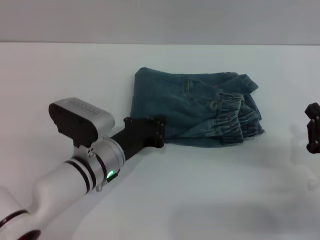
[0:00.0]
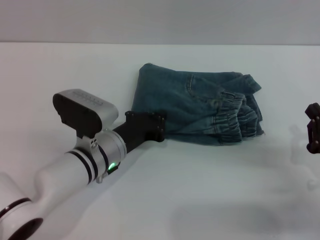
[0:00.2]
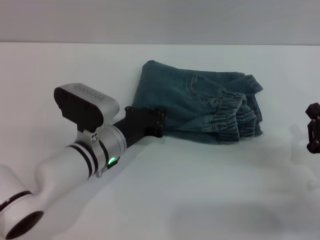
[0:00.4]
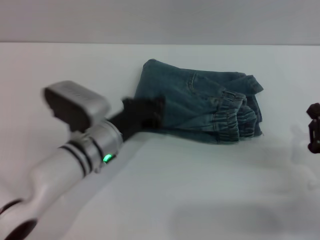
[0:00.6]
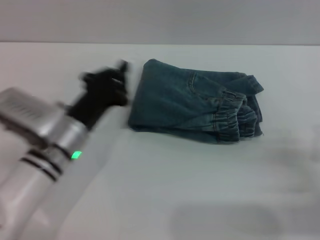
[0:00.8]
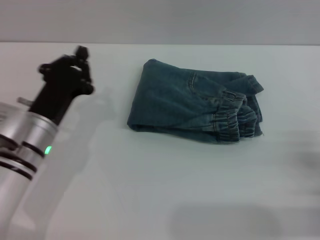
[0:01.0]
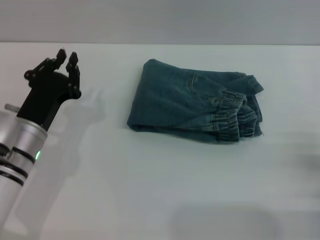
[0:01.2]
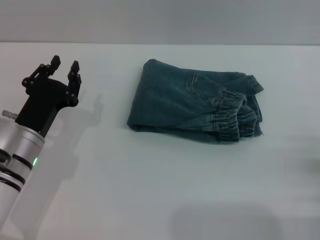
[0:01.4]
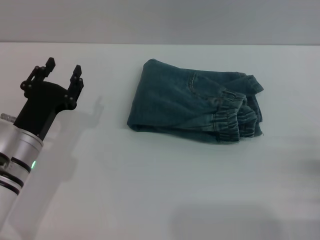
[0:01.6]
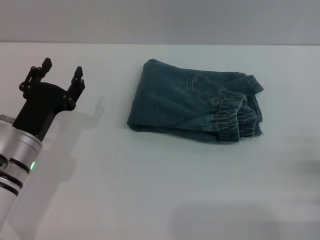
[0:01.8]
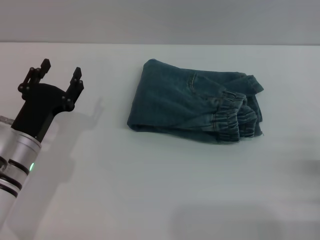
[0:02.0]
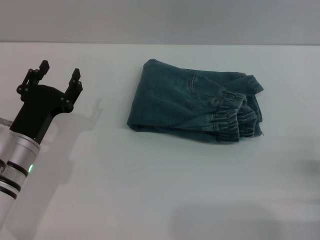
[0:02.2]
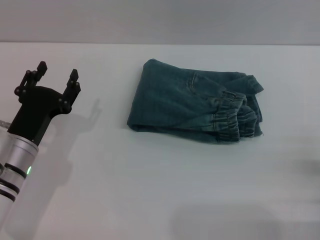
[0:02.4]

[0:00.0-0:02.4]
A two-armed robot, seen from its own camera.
0:00.0 to 0:01.2: The left gripper moves to the left, roughly 10 cm.
0:01.2 to 0:02.4: The left gripper opens up.

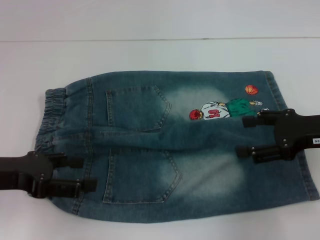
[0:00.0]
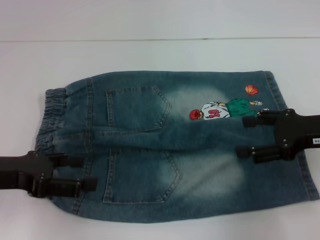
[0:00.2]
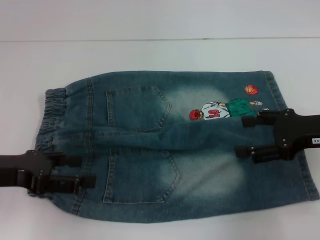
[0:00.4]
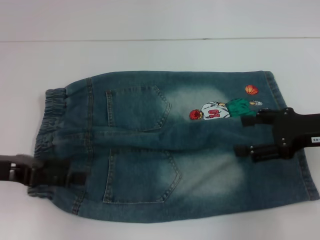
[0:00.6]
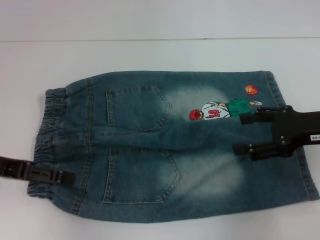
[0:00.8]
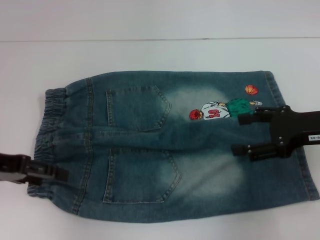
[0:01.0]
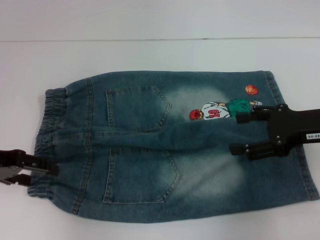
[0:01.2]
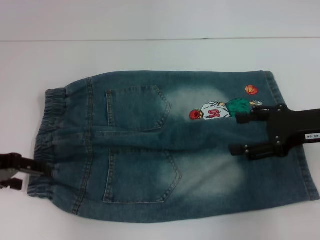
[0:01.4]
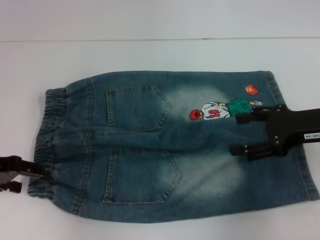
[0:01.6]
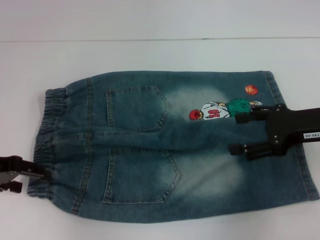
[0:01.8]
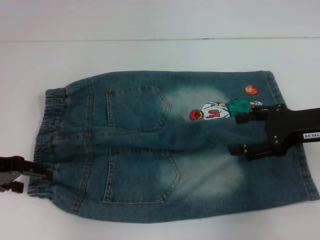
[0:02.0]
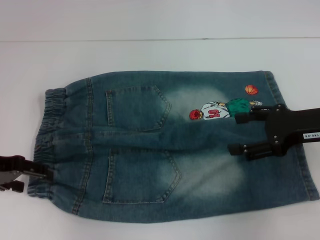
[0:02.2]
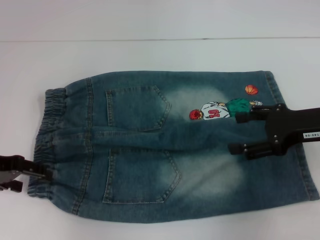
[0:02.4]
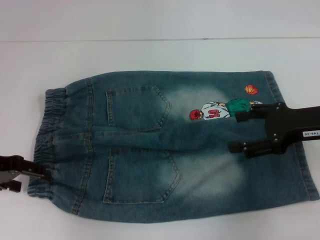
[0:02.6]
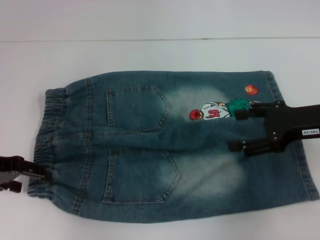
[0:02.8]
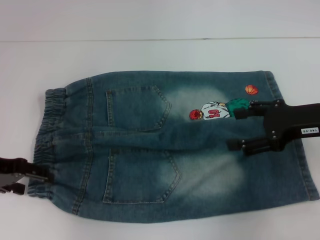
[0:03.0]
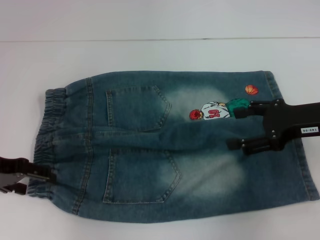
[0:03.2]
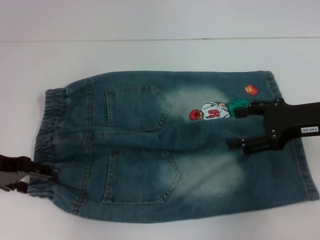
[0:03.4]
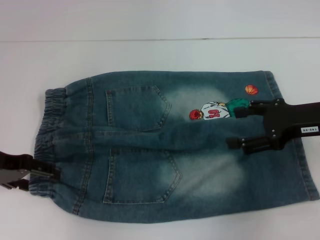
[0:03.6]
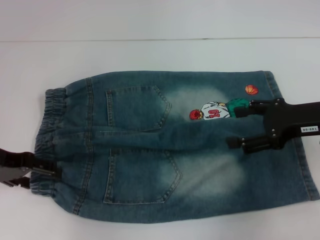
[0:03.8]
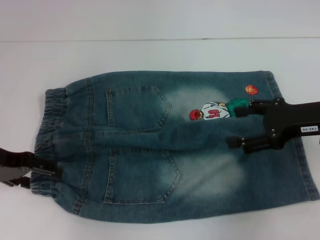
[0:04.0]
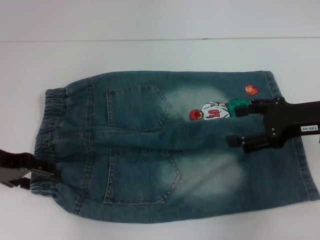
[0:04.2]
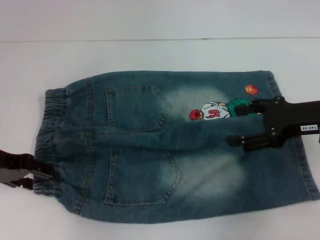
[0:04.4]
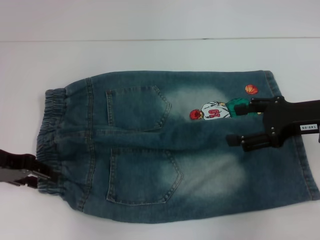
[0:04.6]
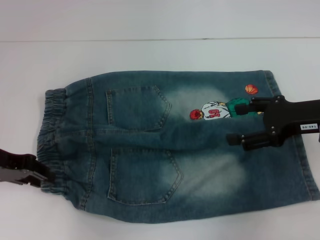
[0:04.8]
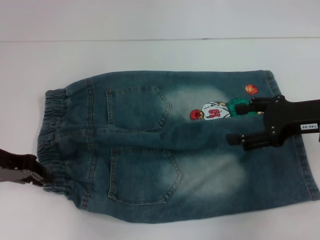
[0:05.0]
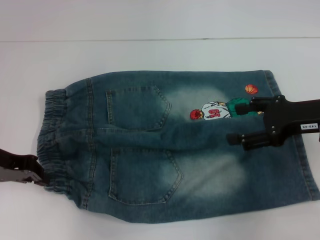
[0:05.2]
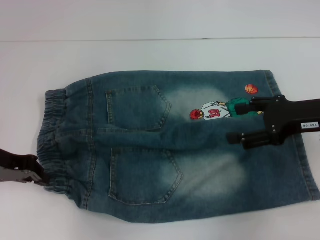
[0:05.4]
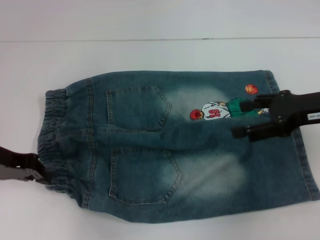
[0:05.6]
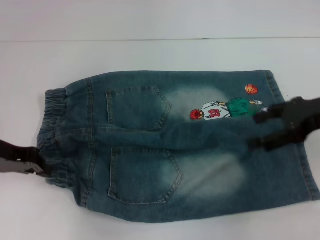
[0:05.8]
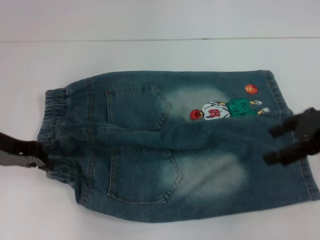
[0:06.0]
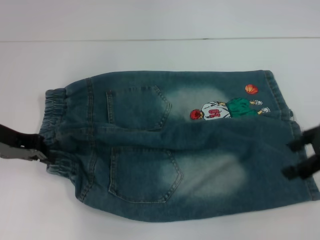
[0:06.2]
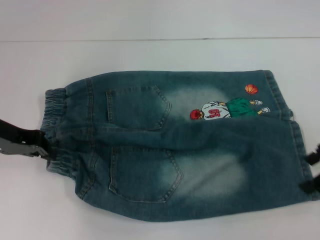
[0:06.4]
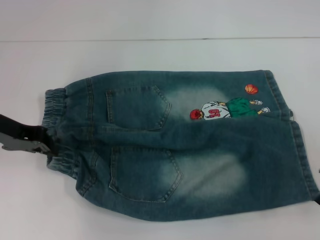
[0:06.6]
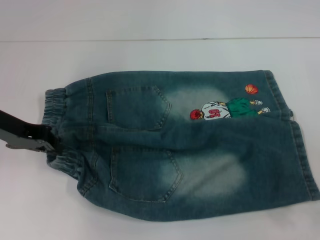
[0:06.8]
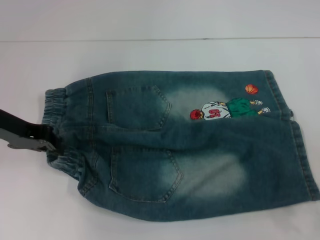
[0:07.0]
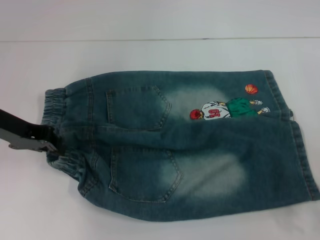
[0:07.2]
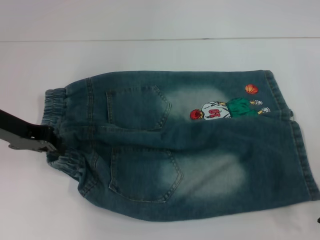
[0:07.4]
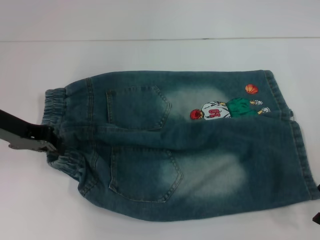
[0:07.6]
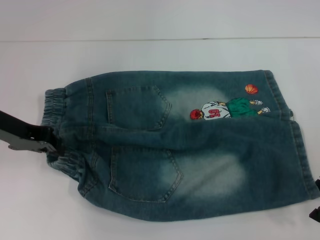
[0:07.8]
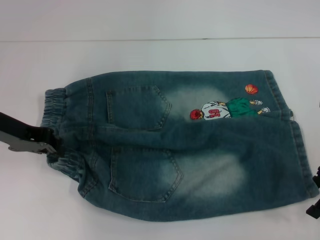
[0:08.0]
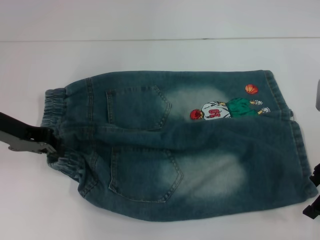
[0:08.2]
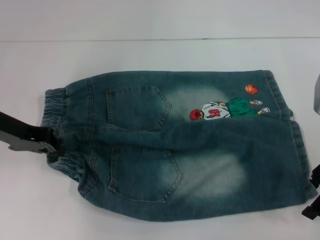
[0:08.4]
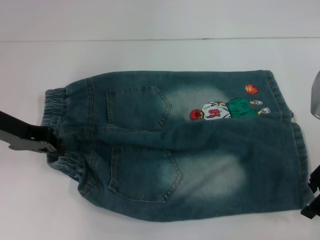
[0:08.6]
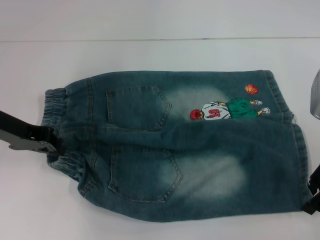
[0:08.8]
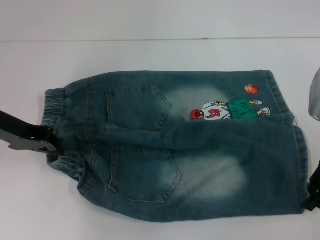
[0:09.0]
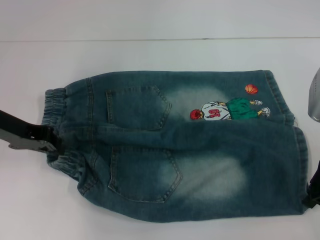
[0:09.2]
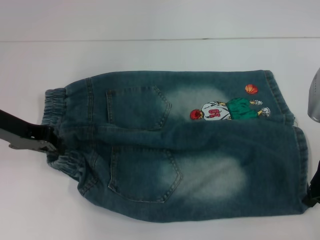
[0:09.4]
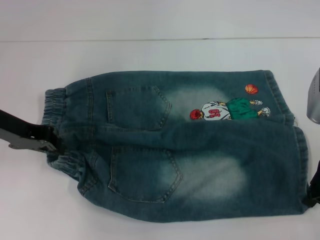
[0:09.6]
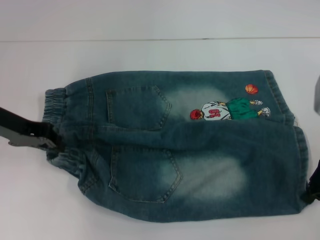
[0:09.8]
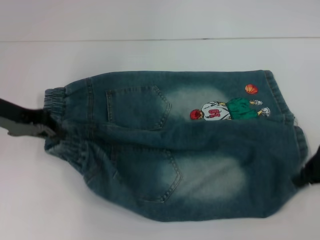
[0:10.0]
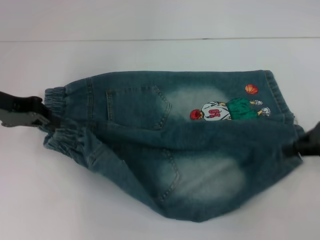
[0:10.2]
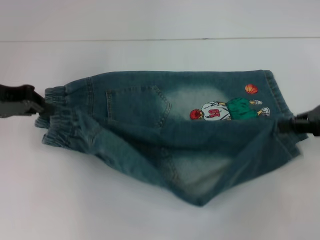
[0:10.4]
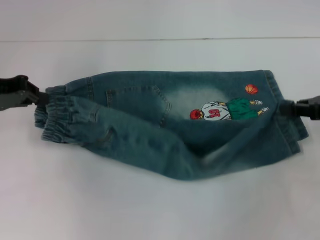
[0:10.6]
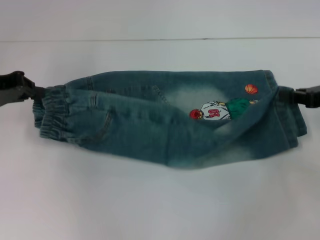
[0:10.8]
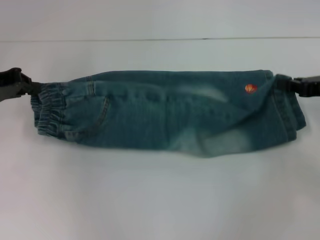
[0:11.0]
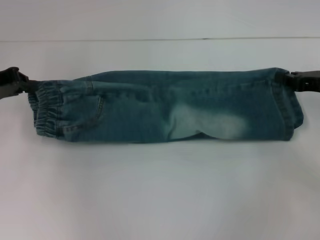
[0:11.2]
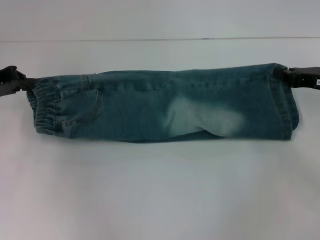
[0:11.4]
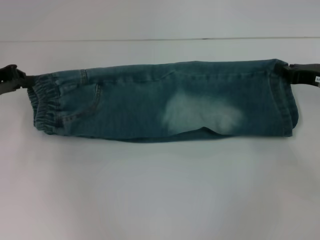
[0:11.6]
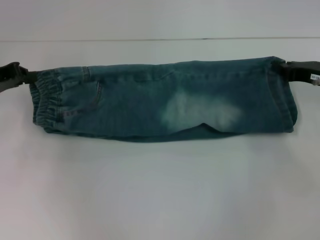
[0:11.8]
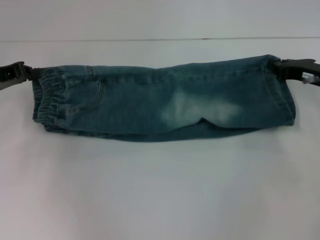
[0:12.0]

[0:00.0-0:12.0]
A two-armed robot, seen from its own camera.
Step, 0:00.0 to 0:05.2: Hold the lower left waistband with your left hand.
Step, 0:05.6 to 0:09.4: Grab the lower right pant leg with your right hand.
0:00.0 to 0:01.6: The left gripper heads forward, covering some 5 cm.
0:01.6 to 0:03.0: Neither gripper changes place.
0:03.0 to 0:04.4: The two grippers keep their place.
0:04.4 to 0:06.0: The left gripper closes its fingers.
0:07.6 to 0:09.0: The right gripper closes its fingers.
0:09.0 to 0:10.4: The right gripper moves to the right, some 5 cm, and closes.
0:10.4 to 0:12.0: The left gripper moves roughly 5 cm. The right gripper moves forward and downward, approximately 10 cm.

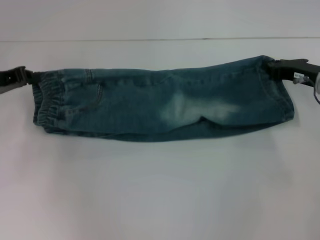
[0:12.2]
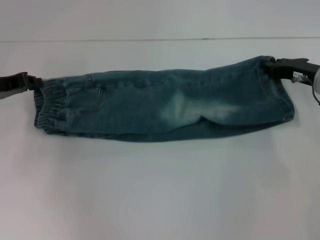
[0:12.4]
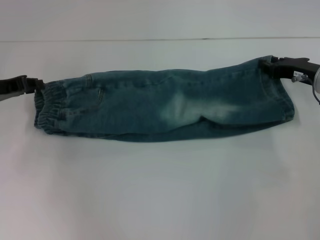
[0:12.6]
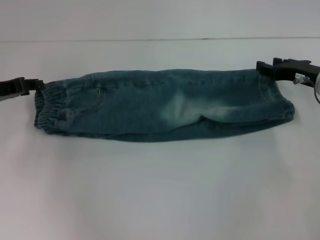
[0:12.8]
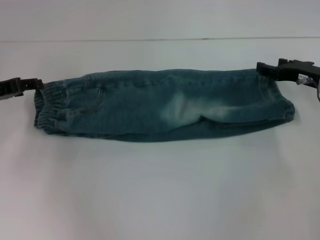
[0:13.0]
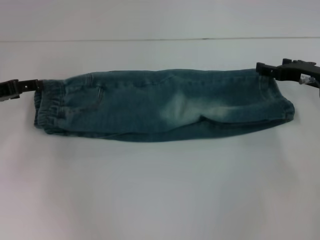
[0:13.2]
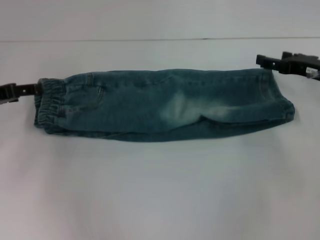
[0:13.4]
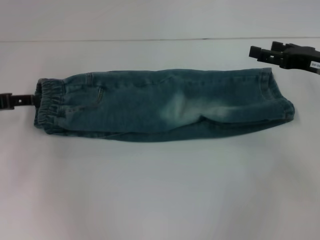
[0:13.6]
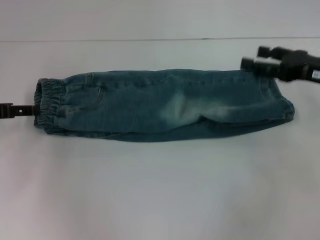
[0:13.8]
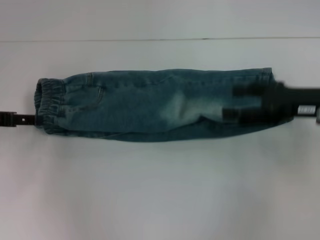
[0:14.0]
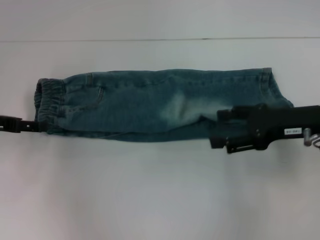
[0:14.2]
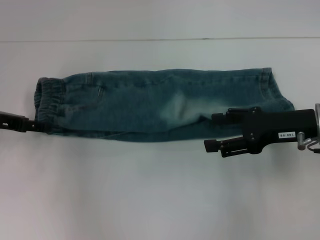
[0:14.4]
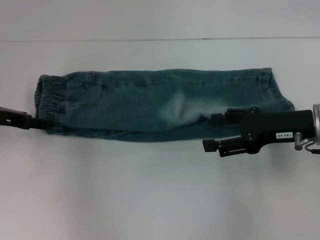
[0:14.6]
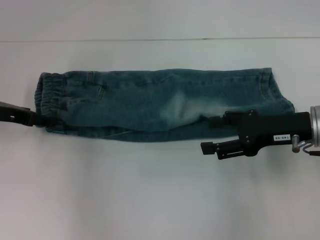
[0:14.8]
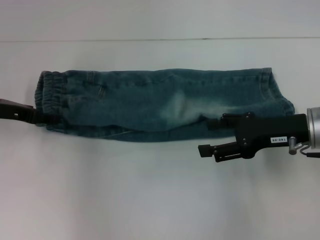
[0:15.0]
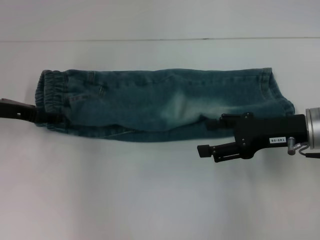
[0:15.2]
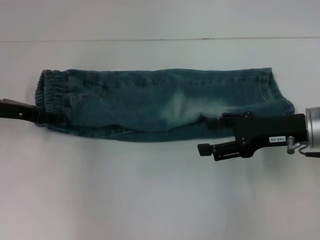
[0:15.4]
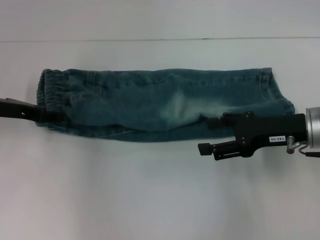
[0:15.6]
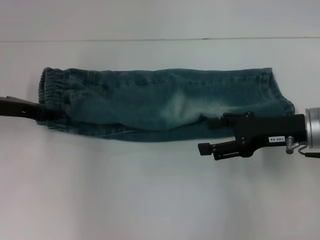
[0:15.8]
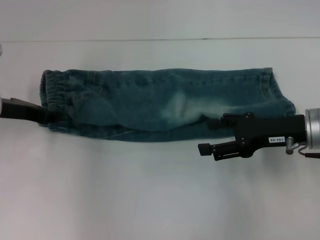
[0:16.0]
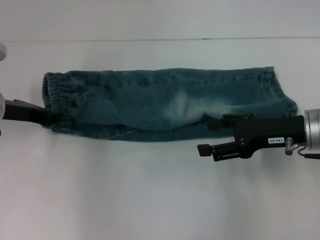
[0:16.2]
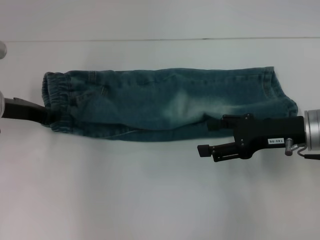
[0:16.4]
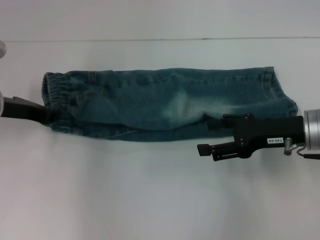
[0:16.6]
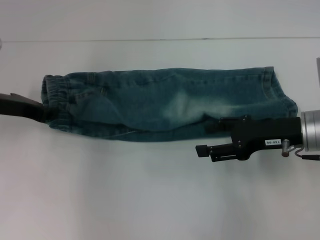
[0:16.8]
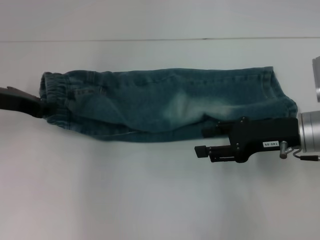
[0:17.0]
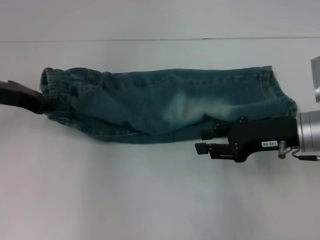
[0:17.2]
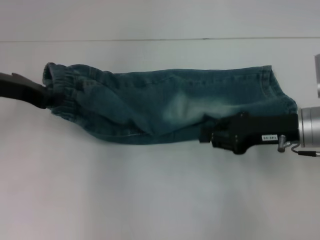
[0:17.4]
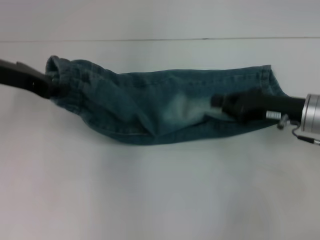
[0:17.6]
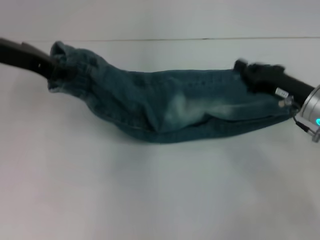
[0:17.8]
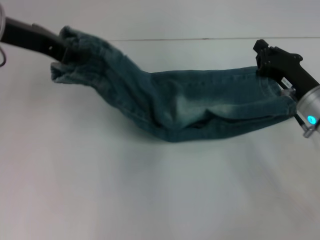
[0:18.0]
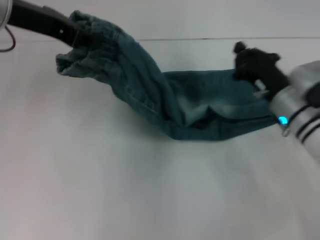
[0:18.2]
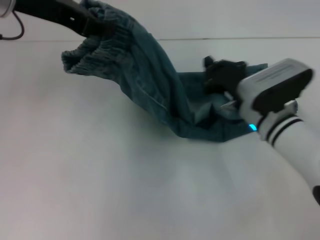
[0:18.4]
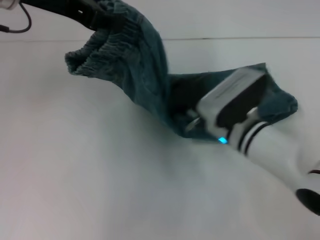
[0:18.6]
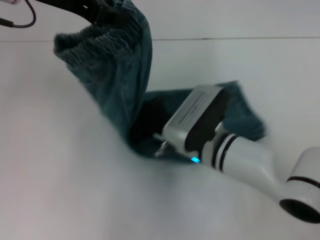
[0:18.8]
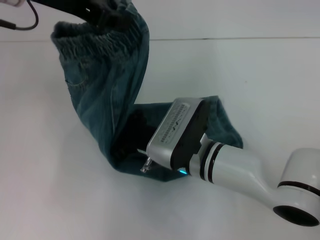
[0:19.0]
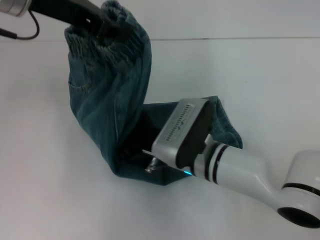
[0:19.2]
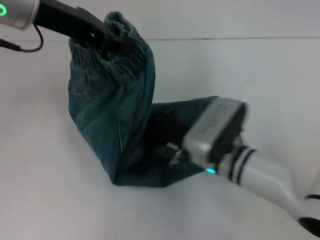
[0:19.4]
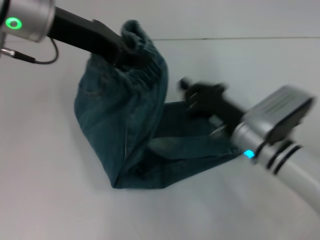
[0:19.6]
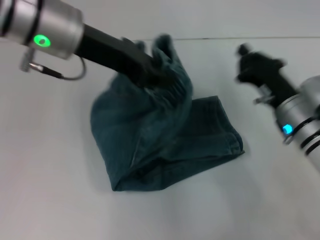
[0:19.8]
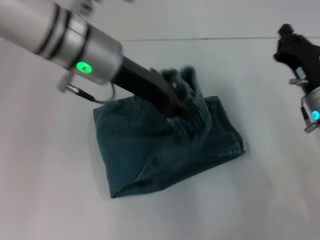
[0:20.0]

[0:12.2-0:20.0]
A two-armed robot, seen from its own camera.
Step, 0:13.2 to 0:16.4: Hold the waistband with your left hand.
Step, 0:16.8 to 0:19.4: Press the middle of the pants with your right hand.
0:12.2 to 0:13.8: The left gripper opens its fingers; the right gripper shifts roughly 5 cm upward, and opens up.
0:13.8 to 0:15.4: The right gripper shifts roughly 5 cm to the left. The left gripper moves about 5 cm.
0:15.4 to 0:16.8: The left gripper closes.
0:16.8 to 0:18.4: The right gripper is displaced to the left and downward by roughly 10 cm, and closes. Meanwhile the left gripper goes roughly 20 cm upward and to the right.
0:18.4 to 0:20.0: The right gripper is displaced to the right by approximately 10 cm, while the left gripper shifts approximately 10 cm to the right and downward.
